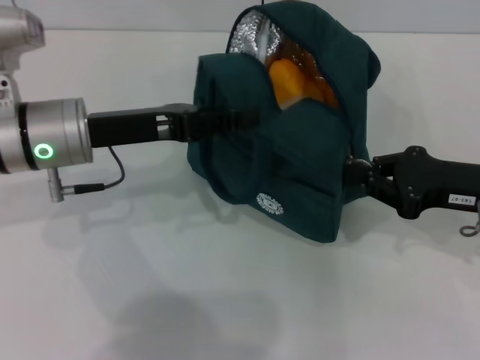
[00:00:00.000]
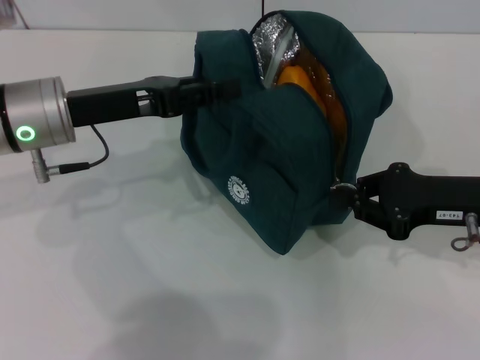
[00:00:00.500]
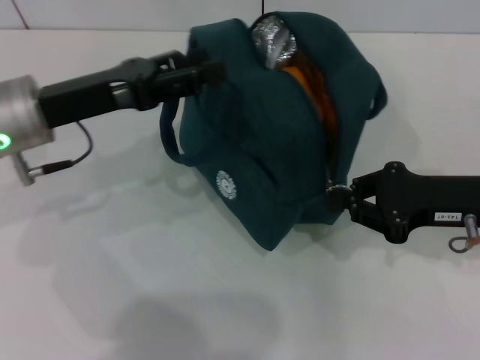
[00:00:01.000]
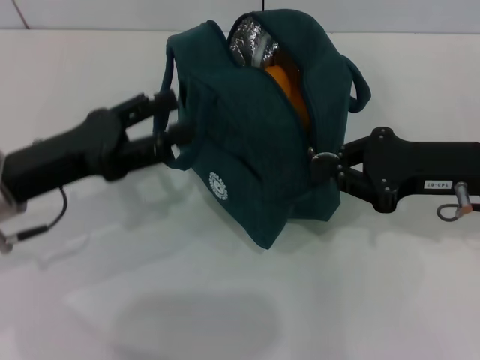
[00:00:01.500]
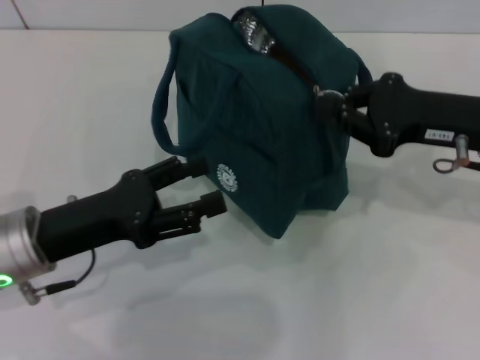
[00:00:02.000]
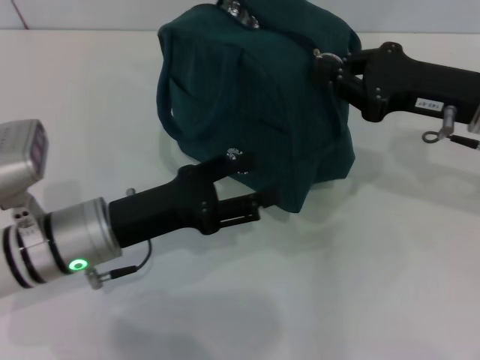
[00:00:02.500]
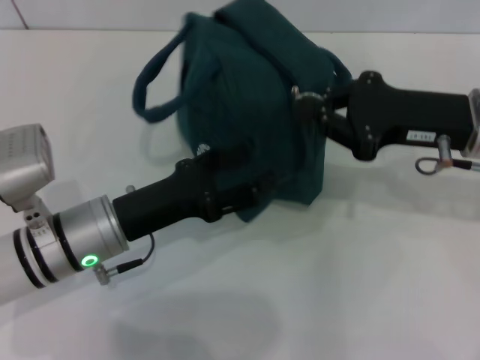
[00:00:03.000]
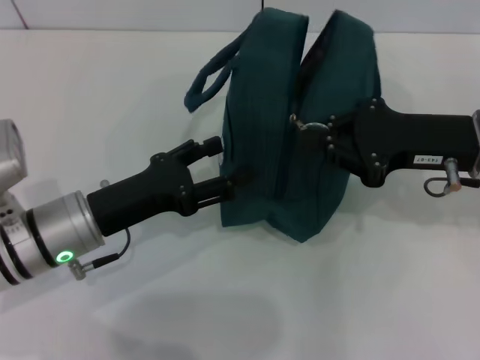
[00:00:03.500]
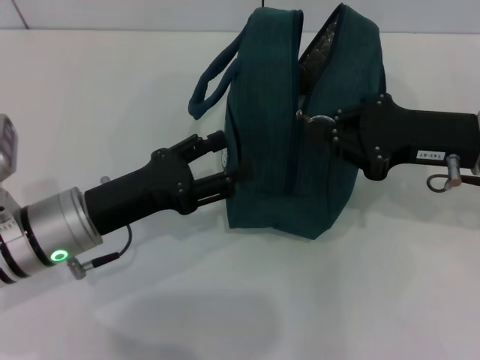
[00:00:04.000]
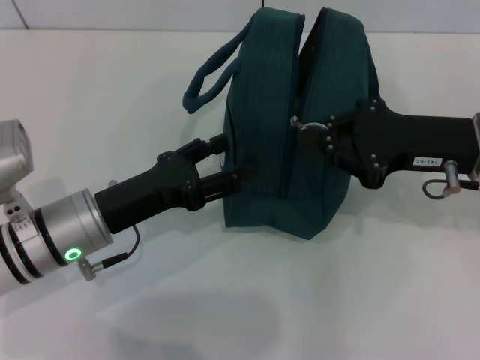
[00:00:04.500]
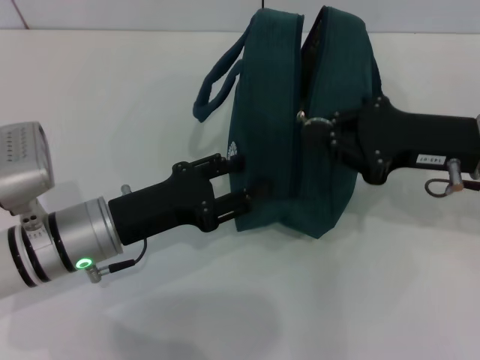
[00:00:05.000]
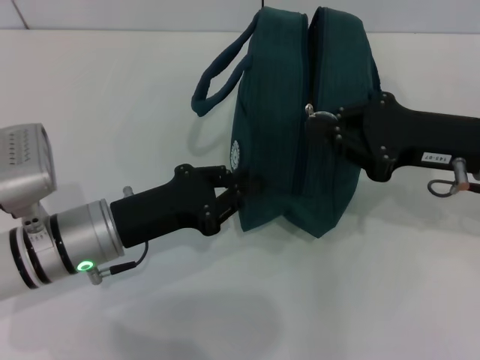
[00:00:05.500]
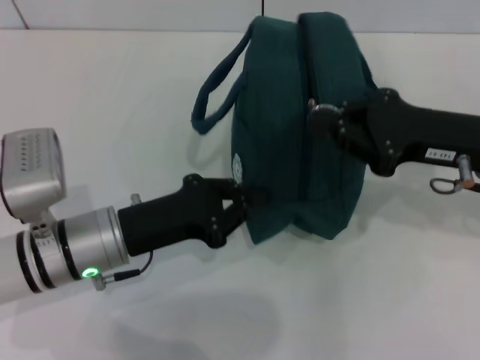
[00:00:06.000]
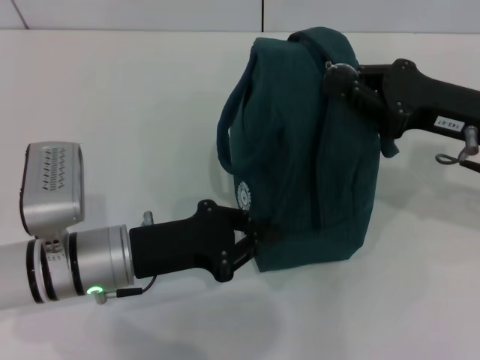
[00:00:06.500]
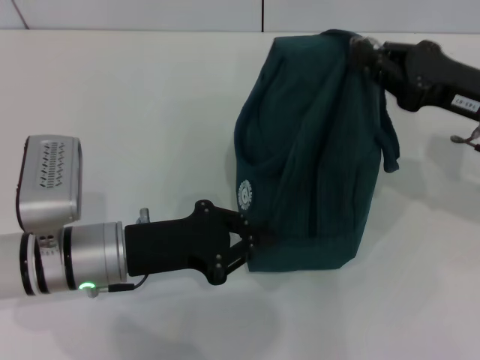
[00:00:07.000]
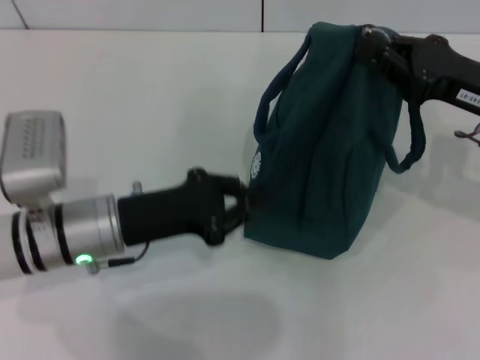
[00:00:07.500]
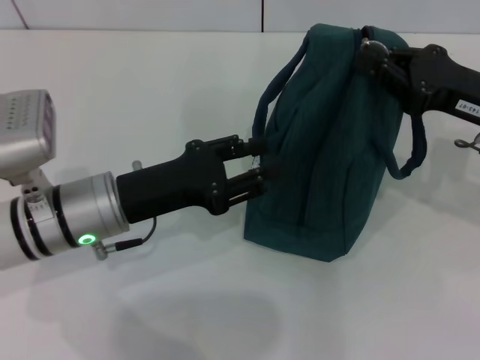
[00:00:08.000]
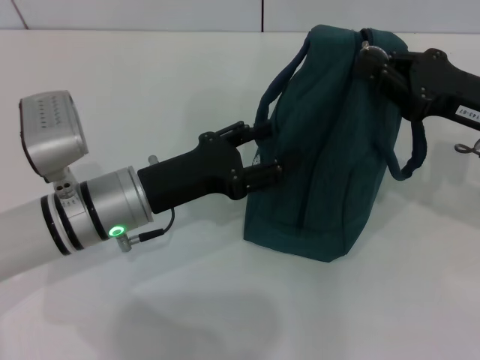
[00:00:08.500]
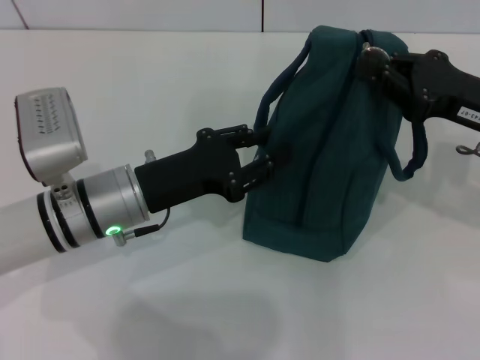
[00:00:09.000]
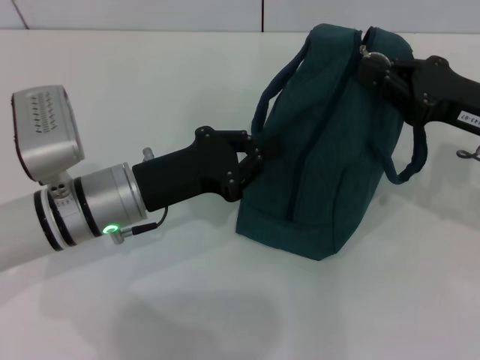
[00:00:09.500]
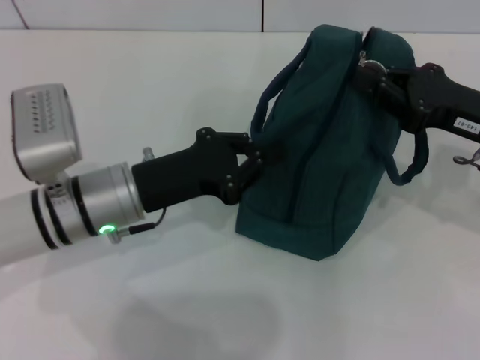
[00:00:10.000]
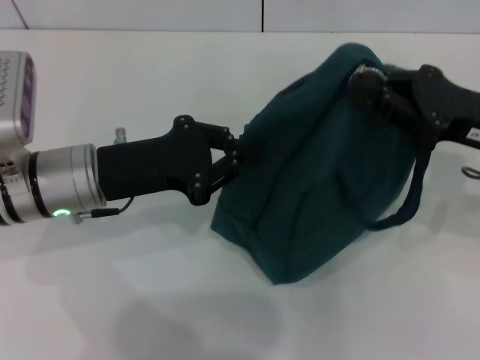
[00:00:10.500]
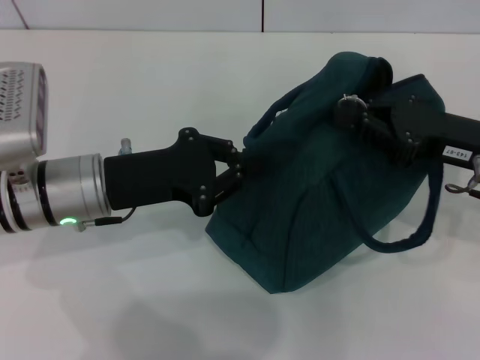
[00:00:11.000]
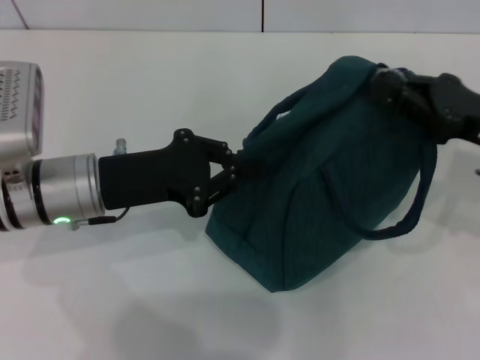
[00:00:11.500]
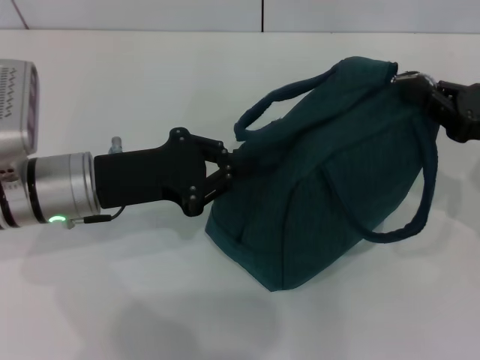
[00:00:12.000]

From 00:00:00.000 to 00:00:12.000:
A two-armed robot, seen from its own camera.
From 00:00:00.000 to 00:00:02.000: The right gripper ends up about 5 cm from where it was. The left gripper is displaced backward by approximately 10 cm, and opens up.
From 00:00:04.000 to 00:00:06.000: The left gripper closes its fingers.
From 00:00:08.000 to 00:00:10.000: The left gripper opens and closes again.

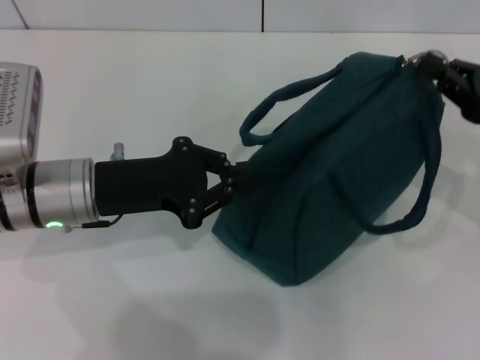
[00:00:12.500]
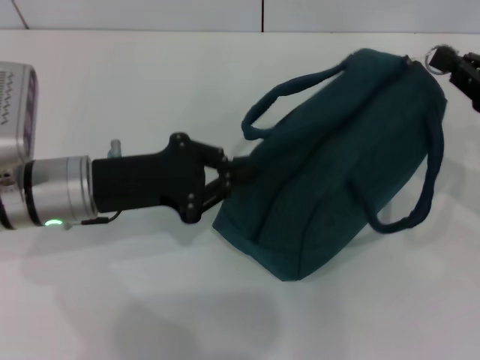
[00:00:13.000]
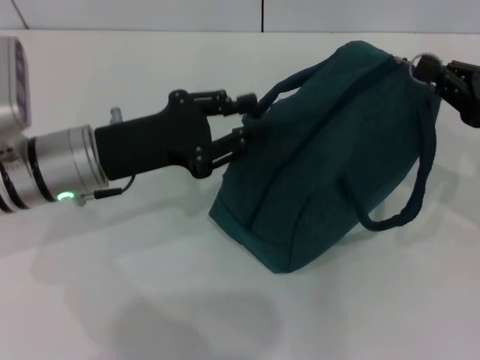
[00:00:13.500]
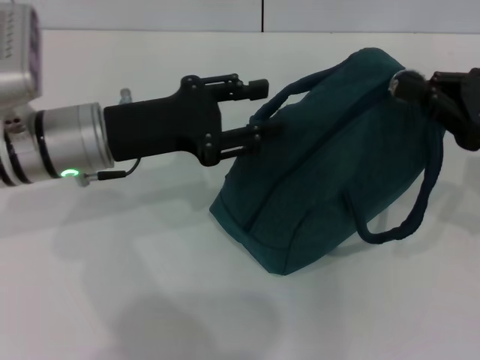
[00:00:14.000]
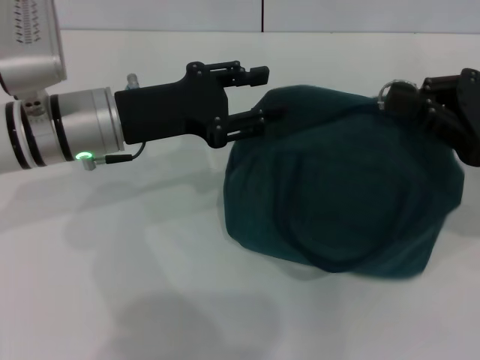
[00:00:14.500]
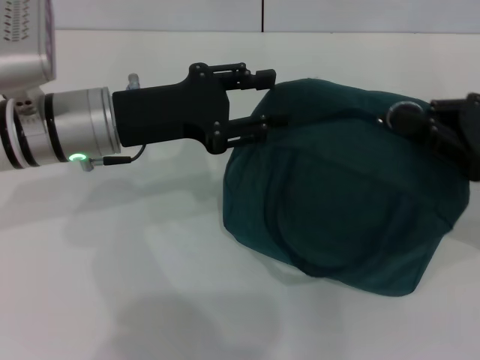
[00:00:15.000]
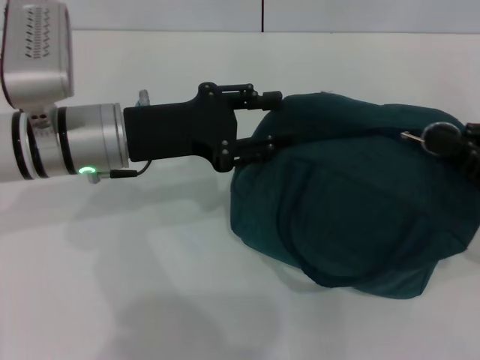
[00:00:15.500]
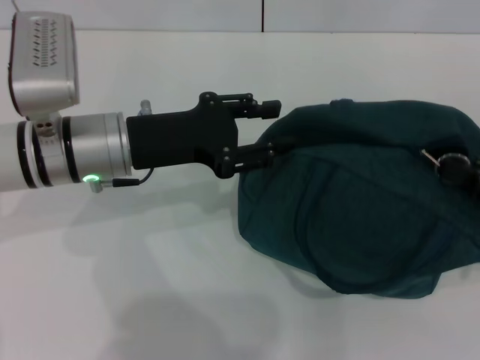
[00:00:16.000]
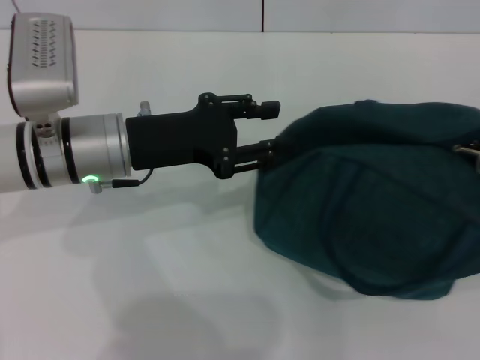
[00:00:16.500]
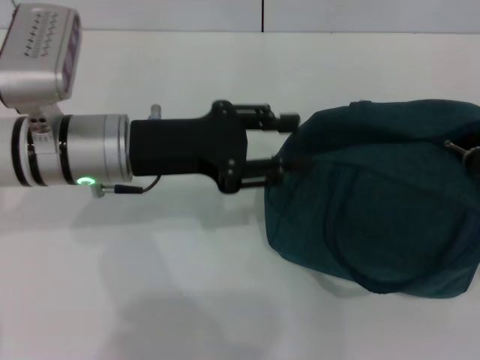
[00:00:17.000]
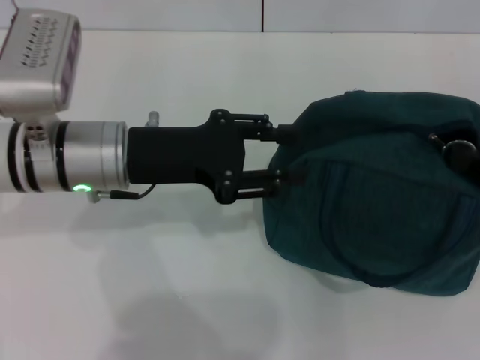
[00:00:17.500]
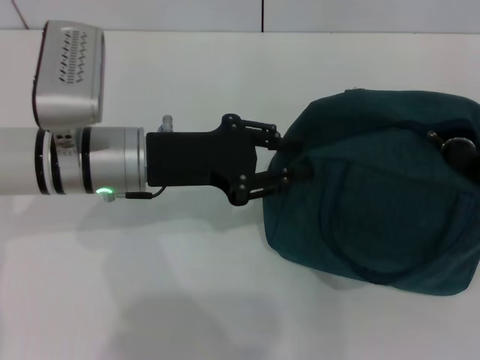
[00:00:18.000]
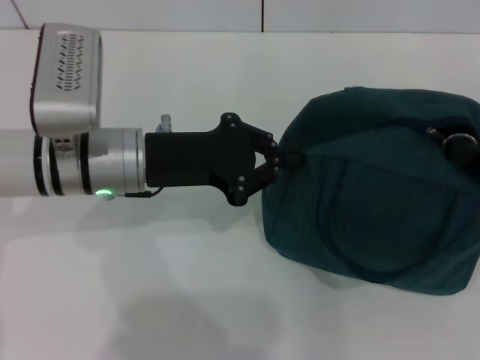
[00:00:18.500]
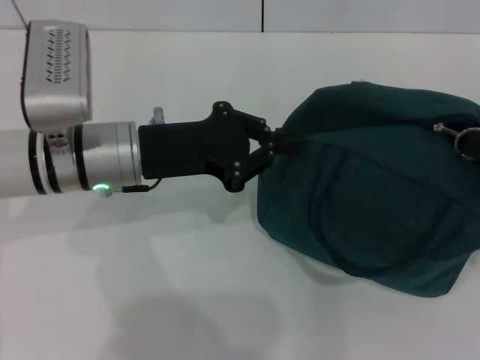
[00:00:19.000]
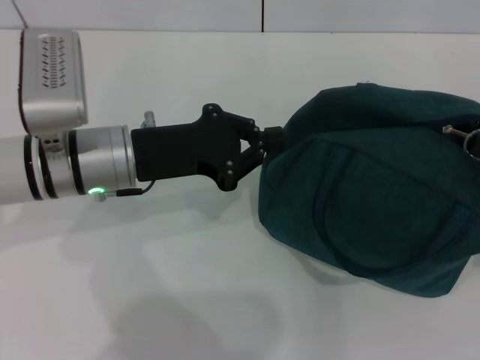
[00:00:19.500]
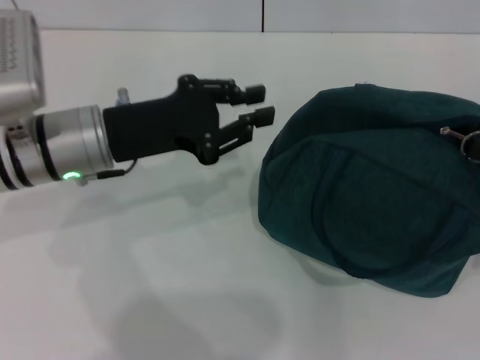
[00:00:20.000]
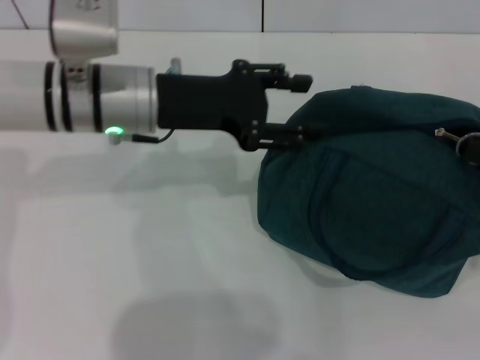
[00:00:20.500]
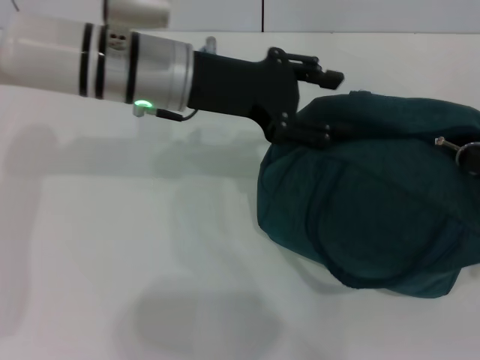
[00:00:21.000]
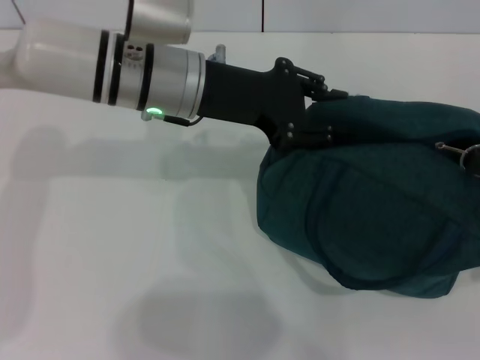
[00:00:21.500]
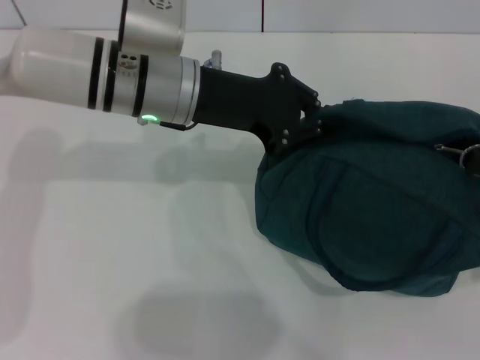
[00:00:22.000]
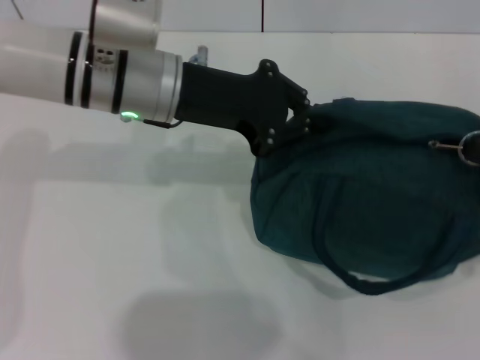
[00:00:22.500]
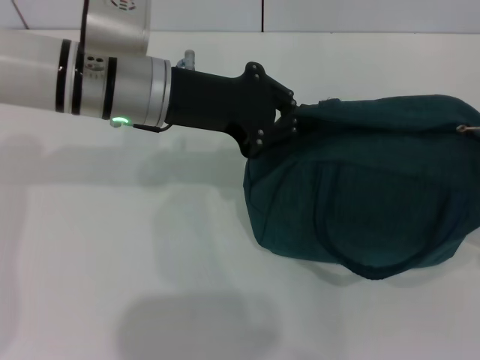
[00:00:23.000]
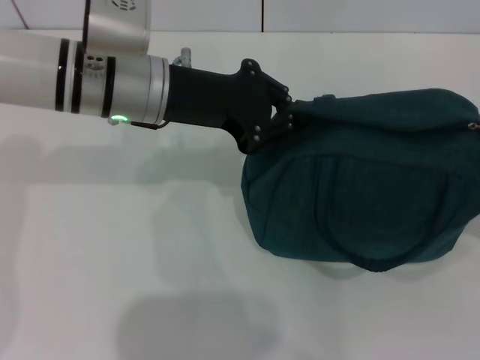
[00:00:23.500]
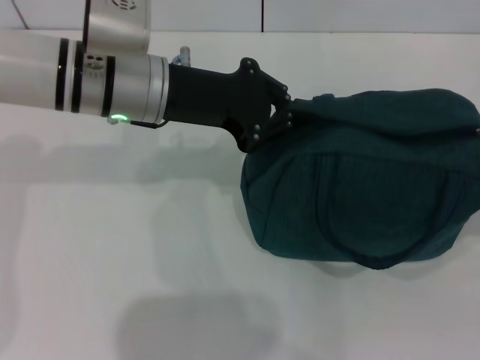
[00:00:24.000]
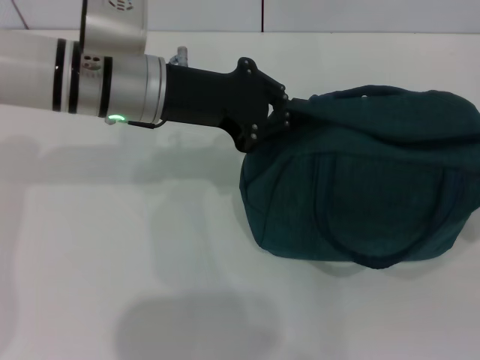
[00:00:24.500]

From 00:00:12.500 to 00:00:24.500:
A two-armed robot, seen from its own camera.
From 00:00:12.500 to 00:00:14.500: The left gripper ends up some 5 cm from where it was, and opens.
From 00:00:14.500 to 00:00:16.500: The right gripper is displaced to the right and backward by some 10 cm.
From 00:00:16.500 to 00:00:18.500: The left gripper closes its fingers.
From 00:00:18.500 to 00:00:20.500: The left gripper shifts by some 5 cm, and opens.
From 00:00:20.500 to 00:00:22.500: The left gripper closes its fingers.
From 00:00:22.500 to 00:00:24.500: The right gripper shifts approximately 5 cm to the right.

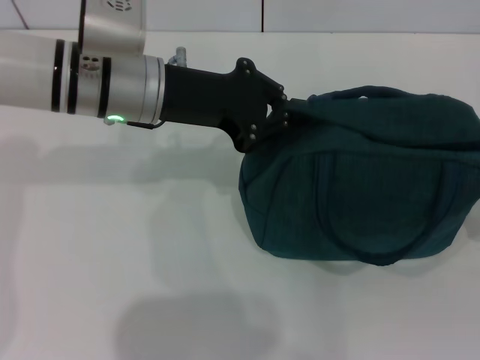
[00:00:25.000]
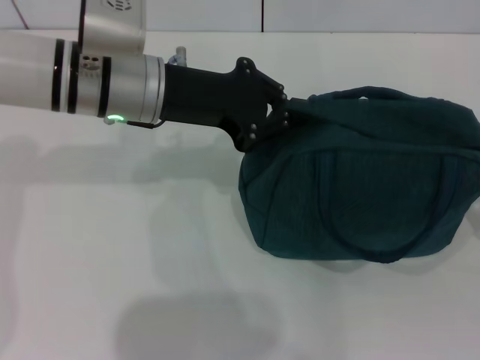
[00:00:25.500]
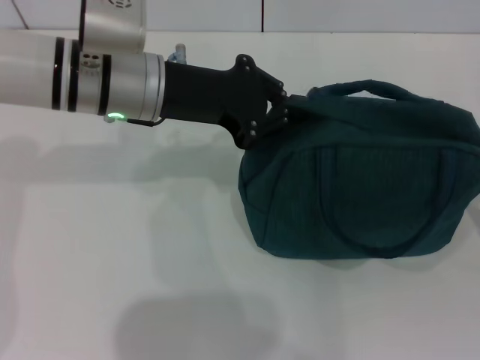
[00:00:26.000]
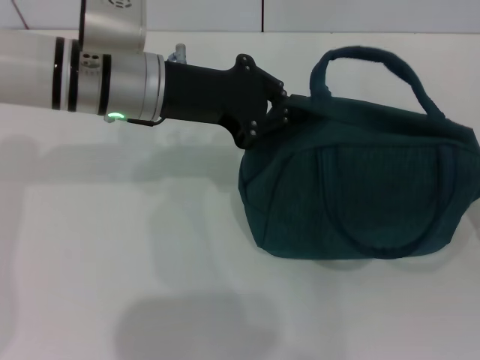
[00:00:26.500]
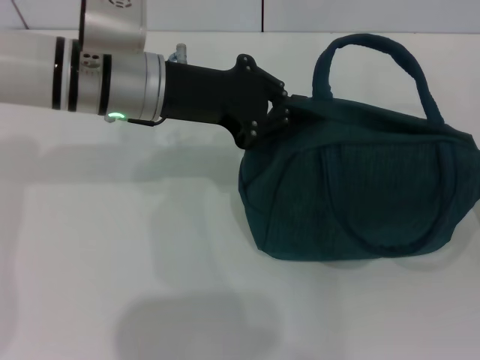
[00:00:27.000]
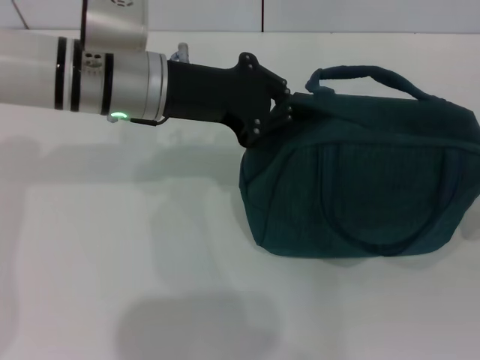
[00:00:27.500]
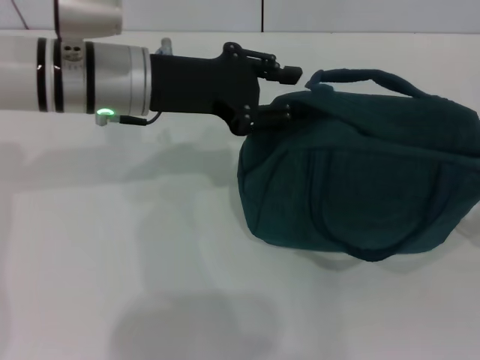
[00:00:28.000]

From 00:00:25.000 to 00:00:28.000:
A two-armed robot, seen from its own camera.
Step, from 00:00:25.000 to 00:00:27.500: Zip up the lunch bag with your right hand.
From 00:00:25.000 to 00:00:28.000: There are only small adjustments of the grippers.
